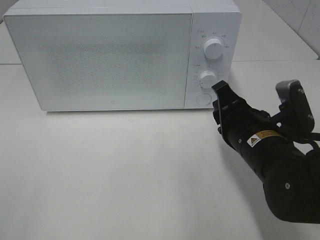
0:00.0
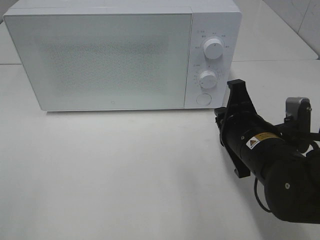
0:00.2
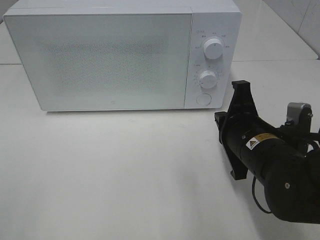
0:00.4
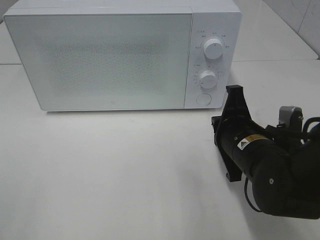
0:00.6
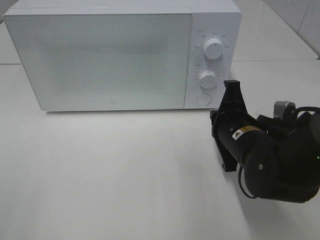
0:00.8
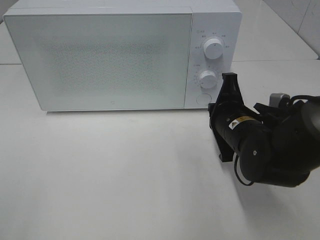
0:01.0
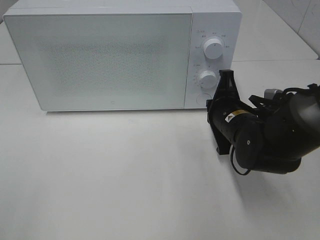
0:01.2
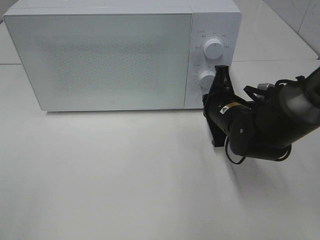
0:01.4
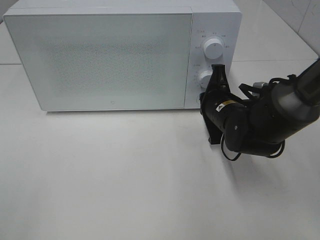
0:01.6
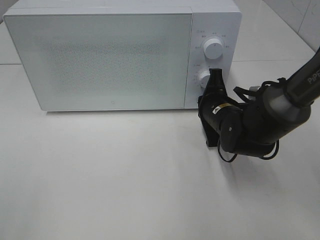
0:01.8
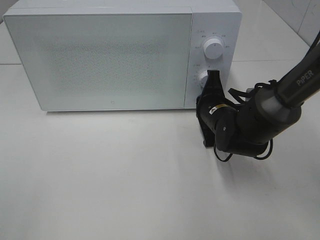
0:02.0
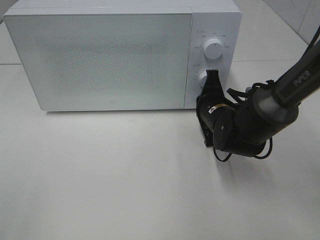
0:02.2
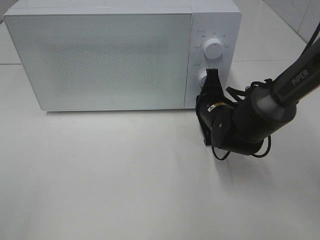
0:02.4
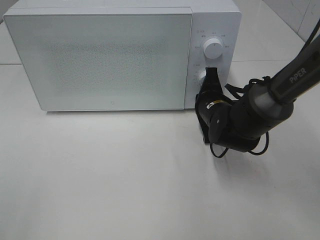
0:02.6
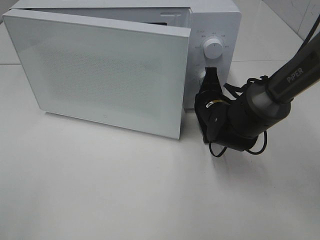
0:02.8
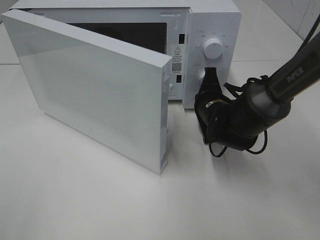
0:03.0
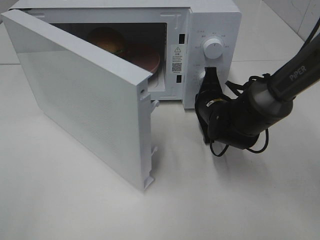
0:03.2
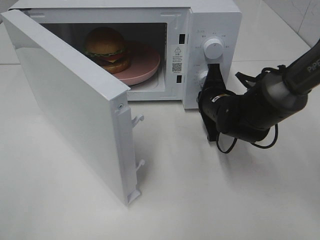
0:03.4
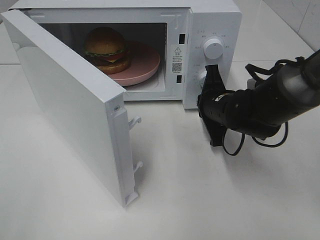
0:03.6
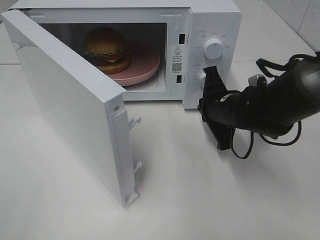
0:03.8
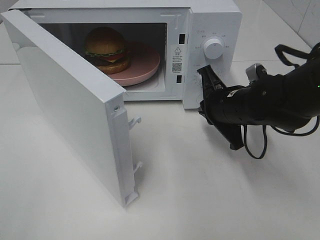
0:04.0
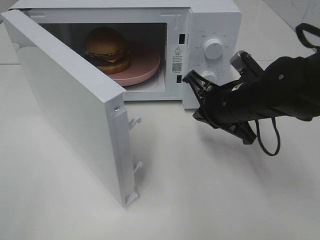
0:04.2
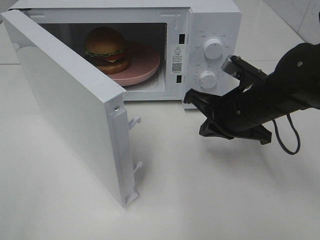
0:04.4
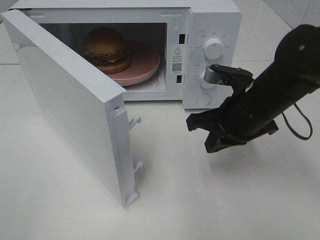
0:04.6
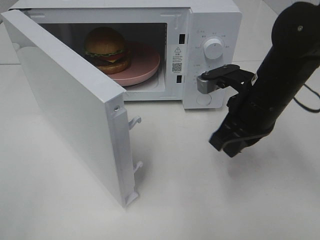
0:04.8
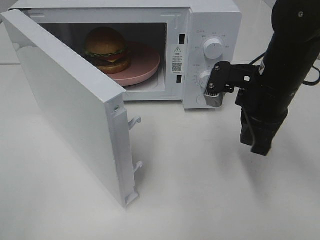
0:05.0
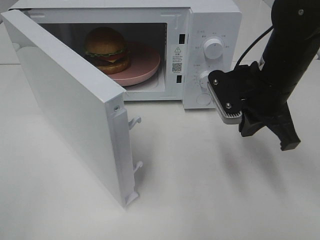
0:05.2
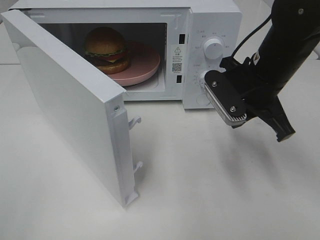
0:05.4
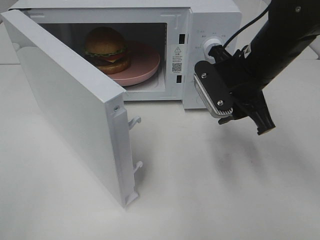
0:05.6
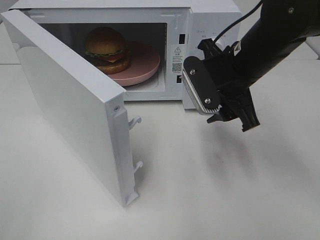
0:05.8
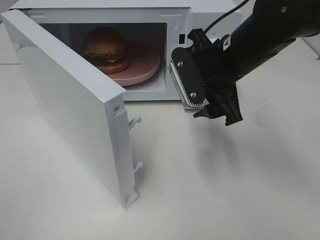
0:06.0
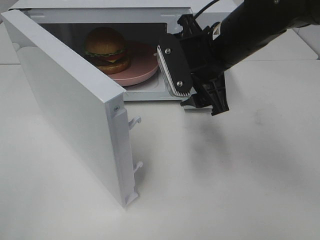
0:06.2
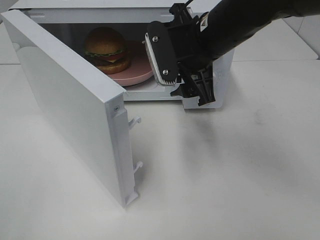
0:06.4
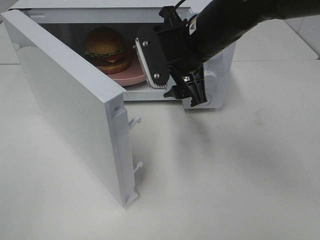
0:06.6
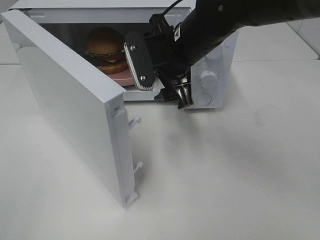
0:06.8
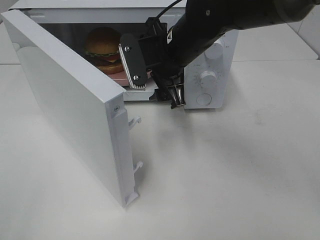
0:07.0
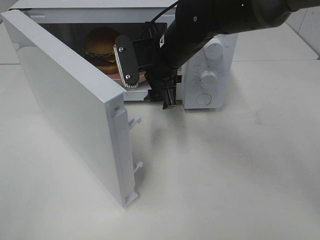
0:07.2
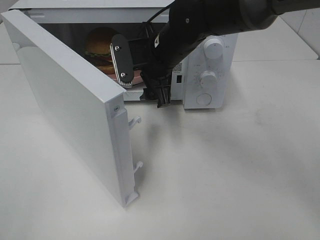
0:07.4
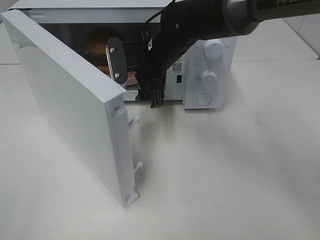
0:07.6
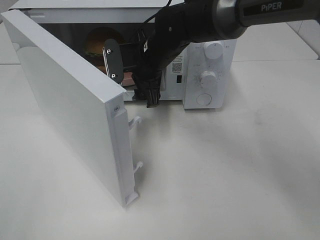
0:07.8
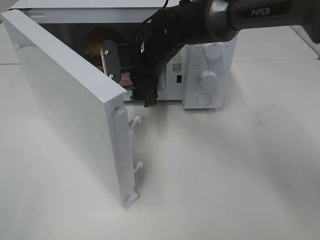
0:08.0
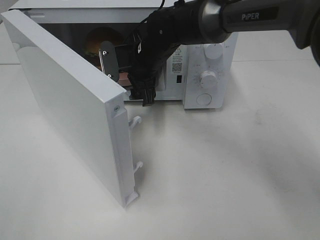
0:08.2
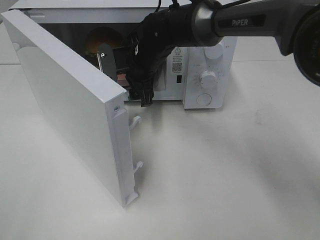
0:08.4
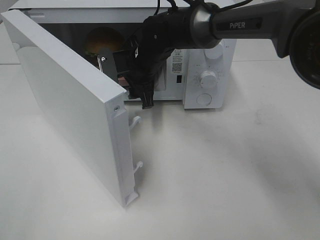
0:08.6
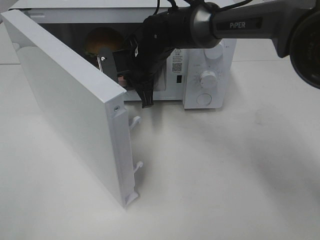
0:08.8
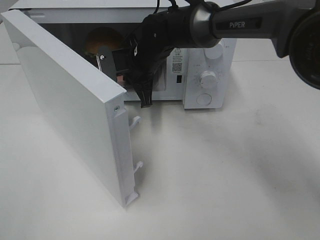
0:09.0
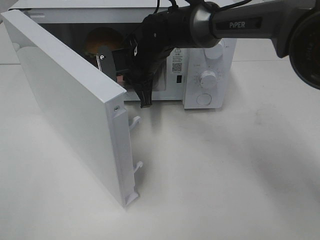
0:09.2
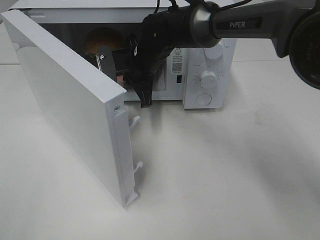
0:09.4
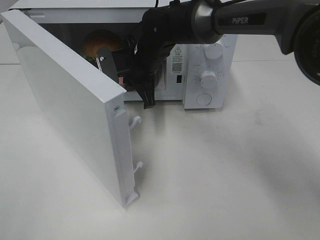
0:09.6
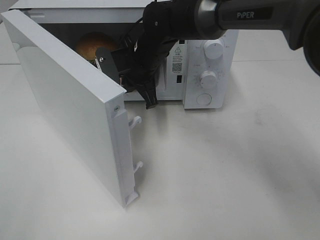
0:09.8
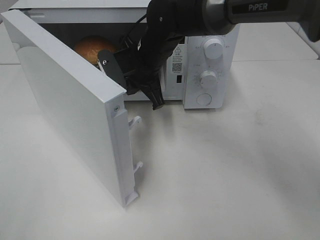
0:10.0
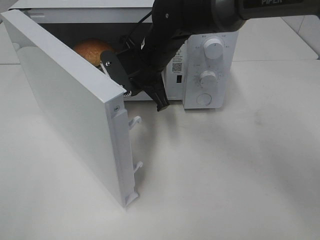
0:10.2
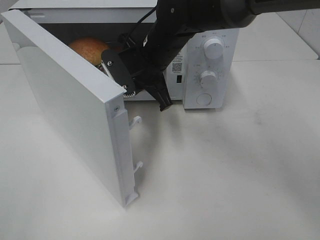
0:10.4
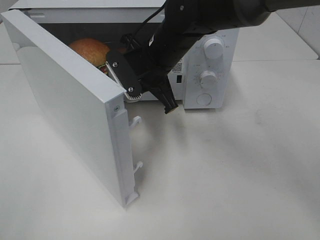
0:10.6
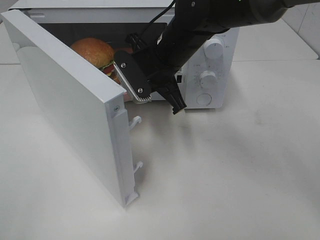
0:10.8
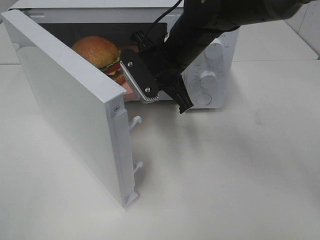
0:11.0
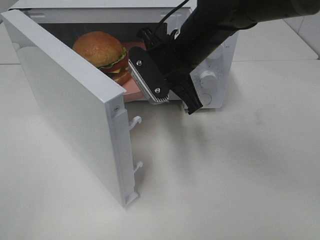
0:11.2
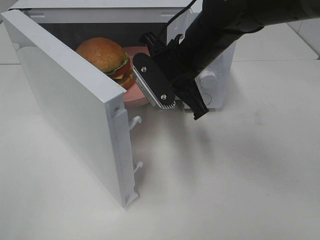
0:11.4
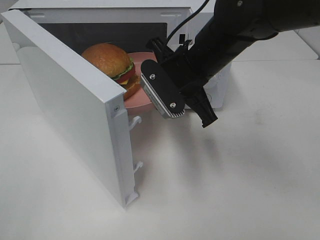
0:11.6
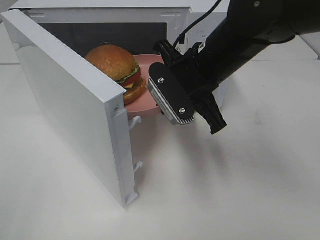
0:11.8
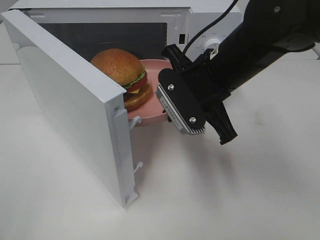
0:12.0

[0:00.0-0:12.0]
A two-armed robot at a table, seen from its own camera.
Task of the whole recording: Heat the burger.
Step, 0:00.0 to 0:03.6: Right hand: press the switch.
Step, 0:03.8 to 0:09.0: Right hand: grab the plate with the hamburger.
0:00.0 to 0:01.6: The right gripper is displaced forward by some 10 cm, and closes its fingers.
0:03.0 to 0:04.4: The right gripper travels upward and backward by about 10 cm.
0:04.4 to 0:06.0: The right gripper heads upward, covering approximately 5 cm, and opens its fingers.
0:06.0 to 0:07.6: The right gripper moves to the left and forward, approximately 15 cm.
0:07.6 to 0:09.0: The right gripper ends up about 5 cm from where it was, and closes.
0:09.0 to 0:10.4: The right gripper travels backward by some 5 cm.
0:10.4 to 0:12.0: The right gripper shifts approximately 15 cm backward and to the right.

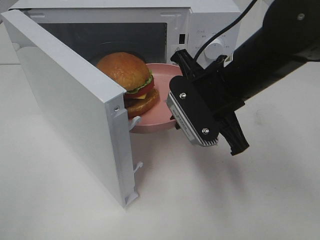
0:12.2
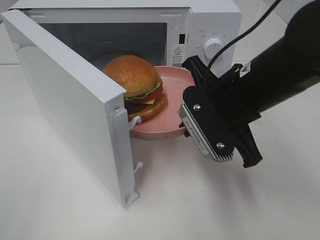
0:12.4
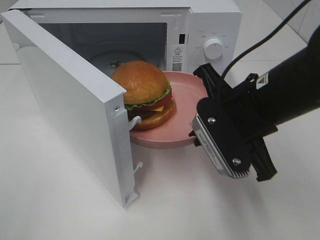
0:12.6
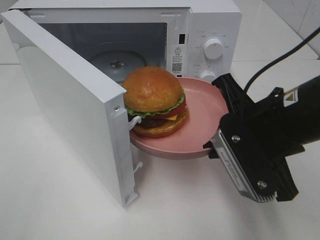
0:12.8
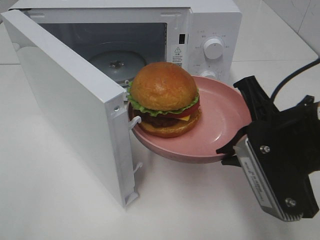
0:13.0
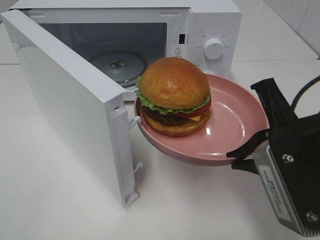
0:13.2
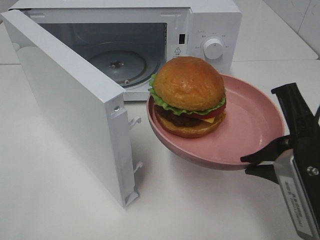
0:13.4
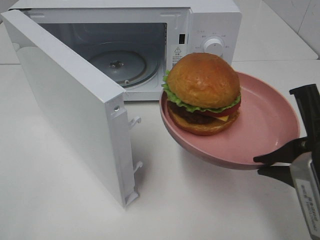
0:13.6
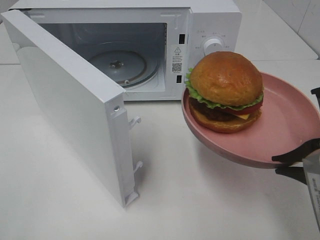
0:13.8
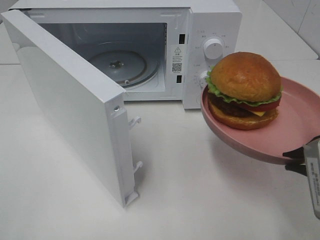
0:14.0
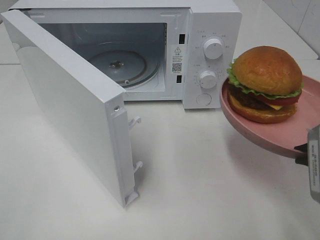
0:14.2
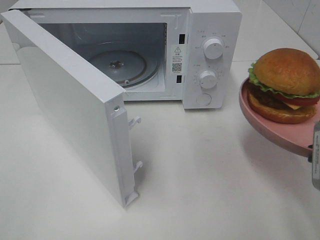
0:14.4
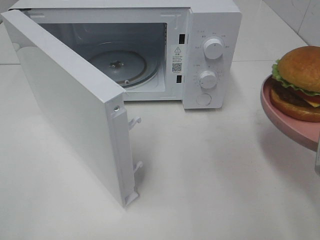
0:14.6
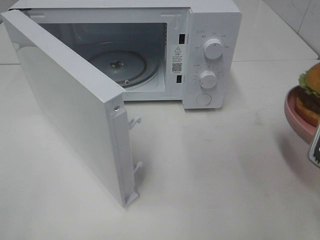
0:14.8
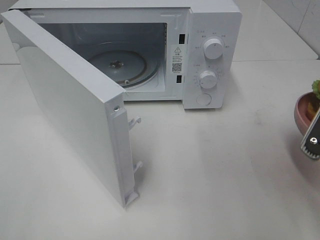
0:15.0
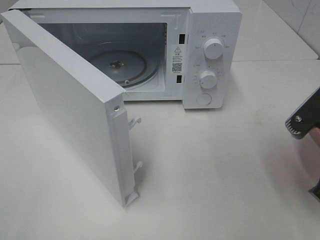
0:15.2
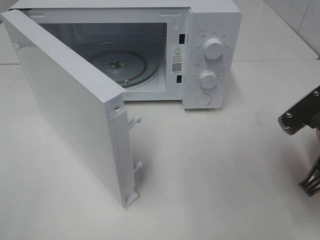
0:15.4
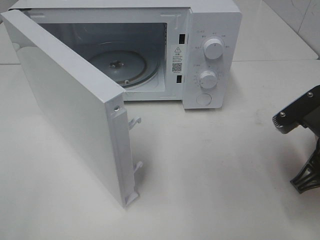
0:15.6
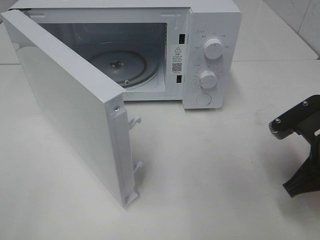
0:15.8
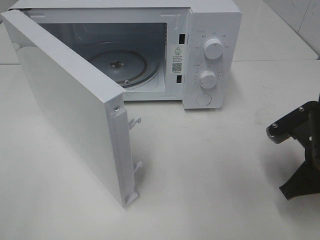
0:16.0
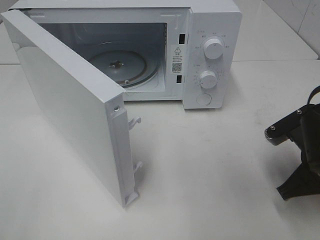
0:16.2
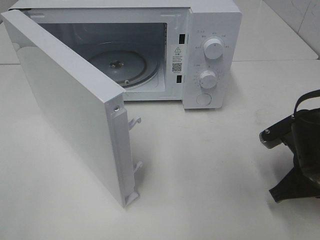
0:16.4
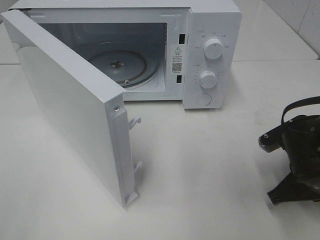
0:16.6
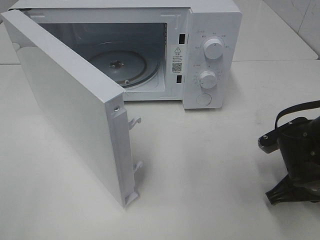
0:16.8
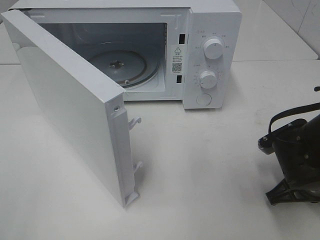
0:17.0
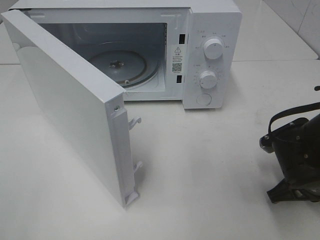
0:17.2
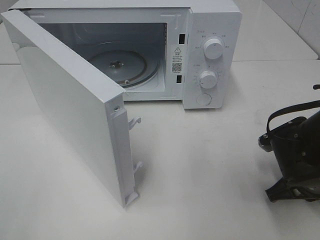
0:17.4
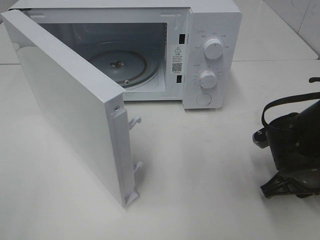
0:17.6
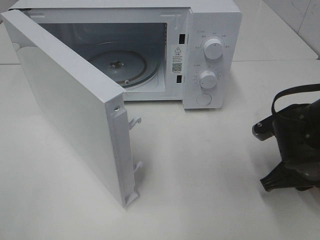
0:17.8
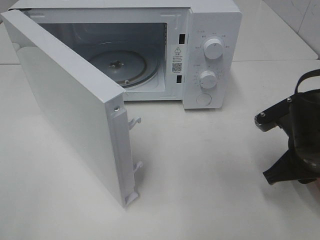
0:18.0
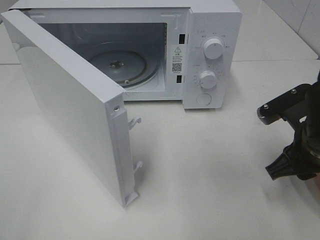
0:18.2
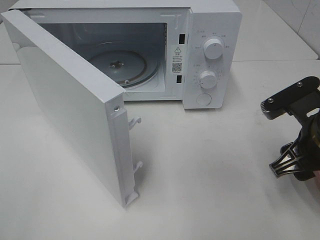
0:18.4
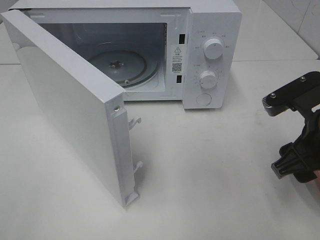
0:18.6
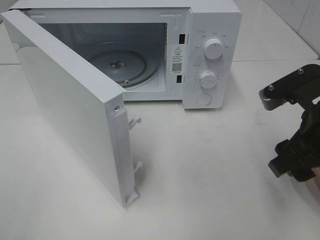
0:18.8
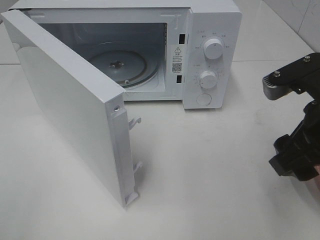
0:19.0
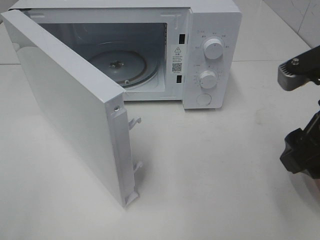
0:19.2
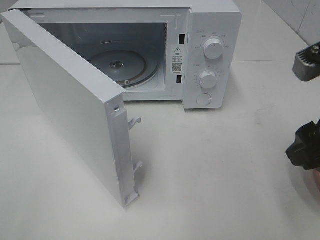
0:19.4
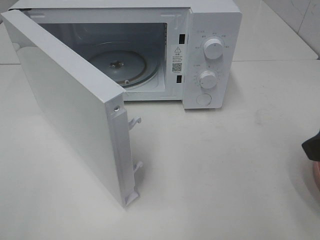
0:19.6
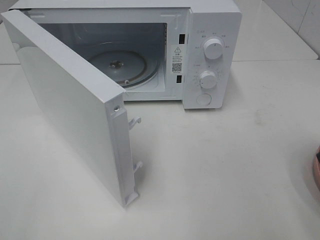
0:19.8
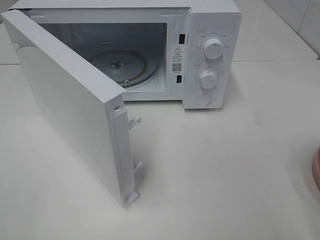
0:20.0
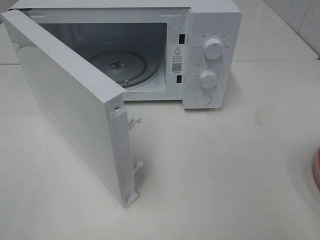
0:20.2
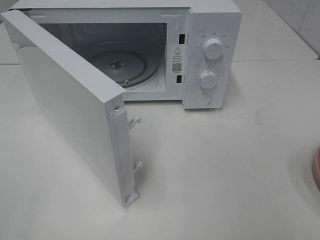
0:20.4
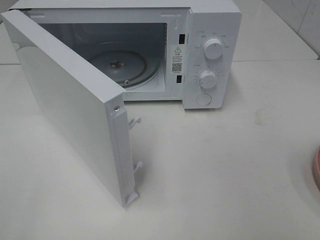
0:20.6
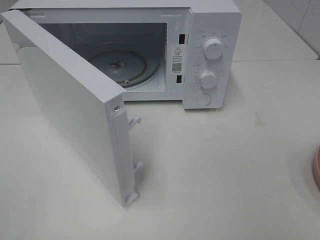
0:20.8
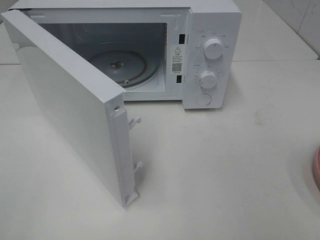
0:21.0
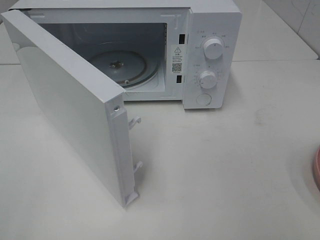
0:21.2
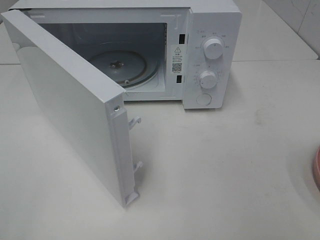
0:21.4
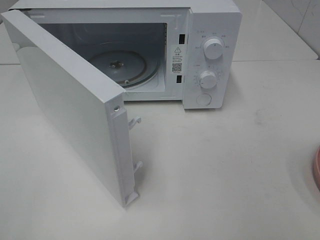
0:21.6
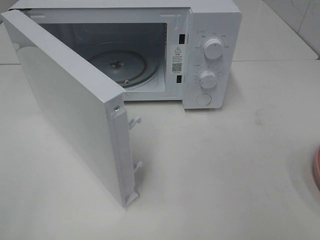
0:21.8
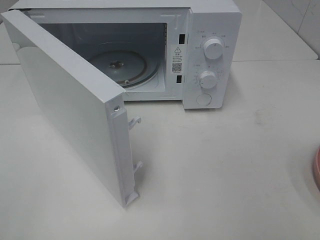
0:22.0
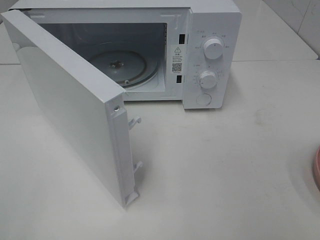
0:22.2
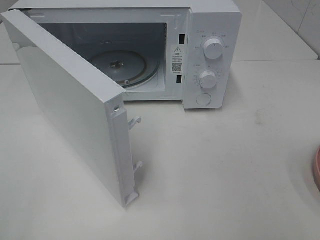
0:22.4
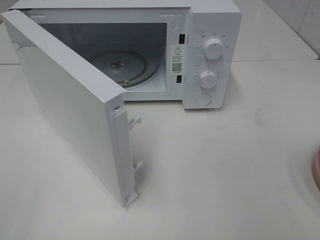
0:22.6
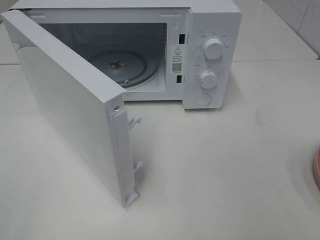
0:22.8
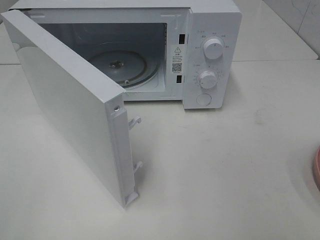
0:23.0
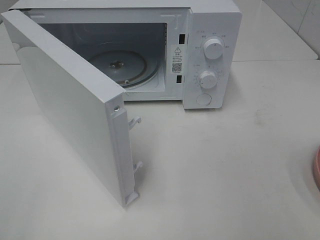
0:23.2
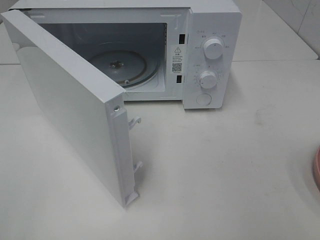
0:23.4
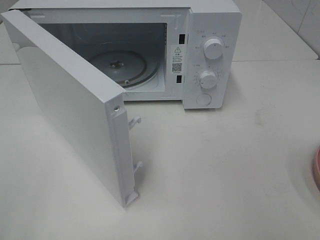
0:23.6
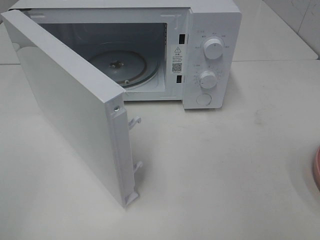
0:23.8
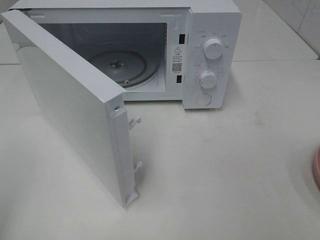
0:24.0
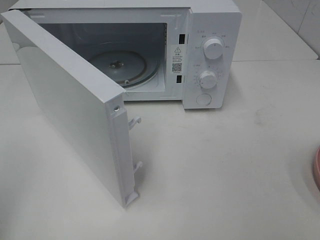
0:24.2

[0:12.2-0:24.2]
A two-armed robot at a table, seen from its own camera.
Task of the whole recording: Heat the burger.
Step, 0:12.2 to 0:17.8: Right hand: place the plate on the table.
0:12.2 to 0:13.8: The right gripper moves backward and to the right, about 15 cm.
0:13.8 to 0:15.2: The right gripper moves approximately 5 cm.
0:15.2 to 0:16.6: The right gripper heads downward, covering about 10 cm.
0:16.6 to 0:18.2: The right gripper moves upward, approximately 5 cm, and opens up.
0:18.2 to 0:19.8: The right gripper heads upward and backward, covering approximately 15 cm.
0:21.2 to 0:22.6: Both grippers stay put.
